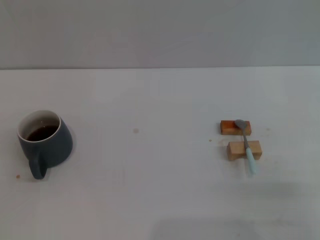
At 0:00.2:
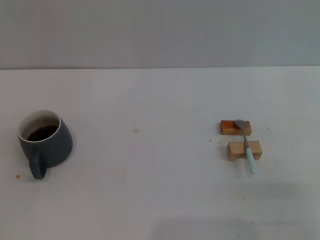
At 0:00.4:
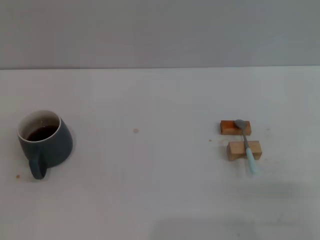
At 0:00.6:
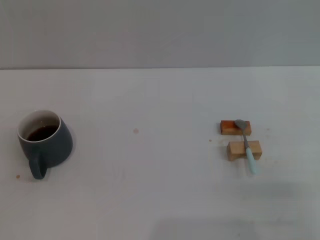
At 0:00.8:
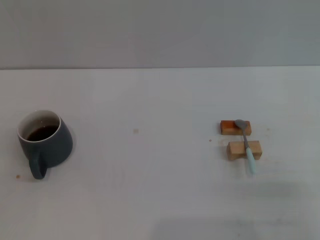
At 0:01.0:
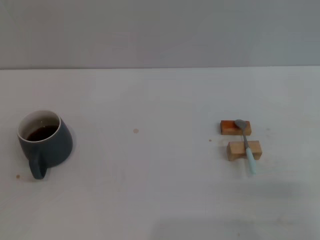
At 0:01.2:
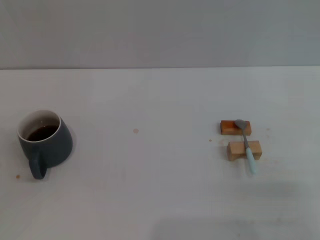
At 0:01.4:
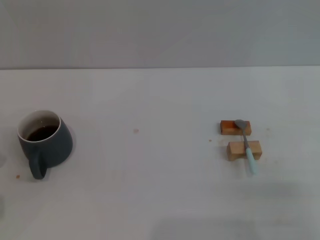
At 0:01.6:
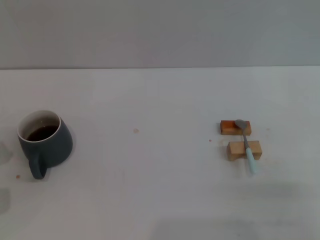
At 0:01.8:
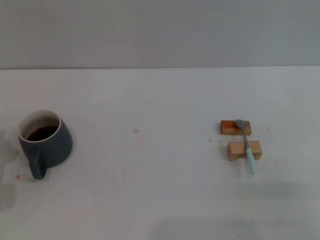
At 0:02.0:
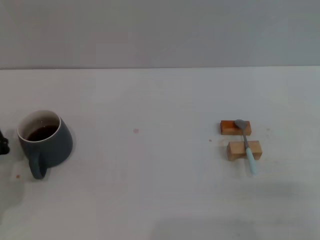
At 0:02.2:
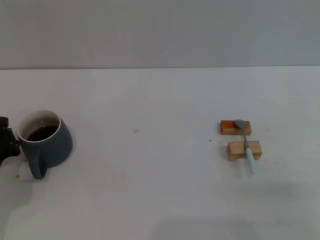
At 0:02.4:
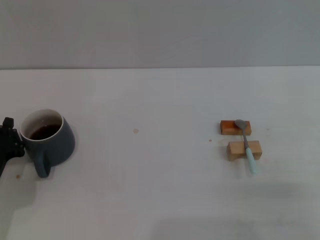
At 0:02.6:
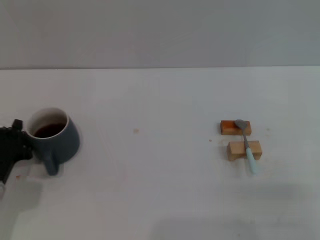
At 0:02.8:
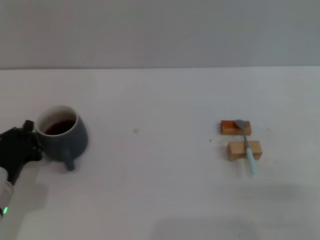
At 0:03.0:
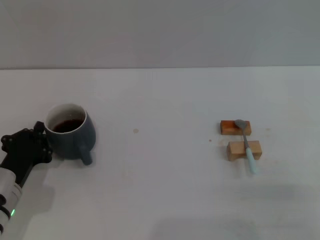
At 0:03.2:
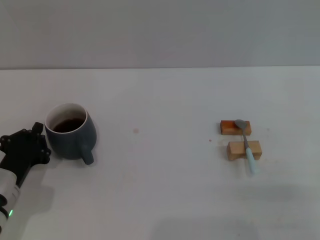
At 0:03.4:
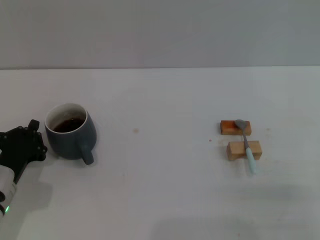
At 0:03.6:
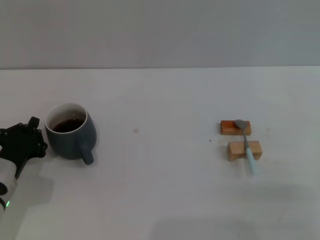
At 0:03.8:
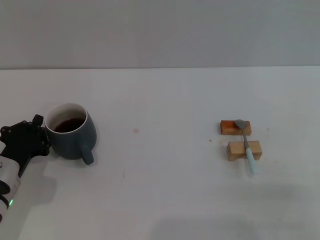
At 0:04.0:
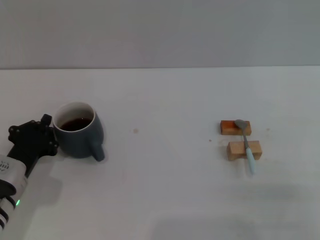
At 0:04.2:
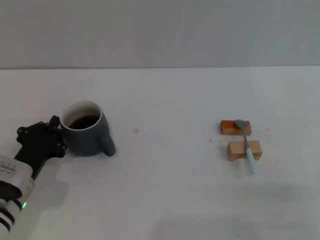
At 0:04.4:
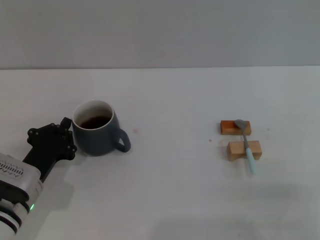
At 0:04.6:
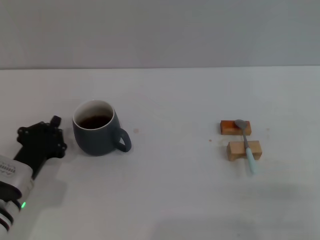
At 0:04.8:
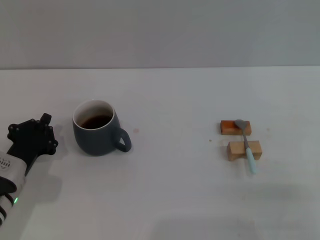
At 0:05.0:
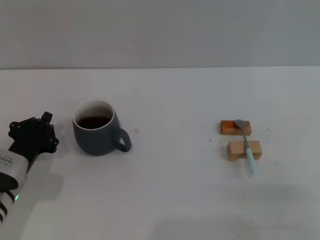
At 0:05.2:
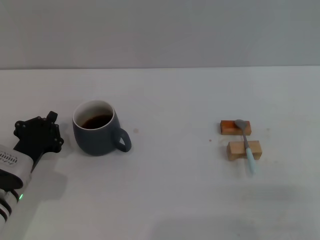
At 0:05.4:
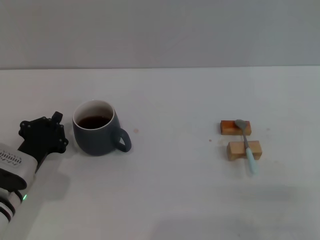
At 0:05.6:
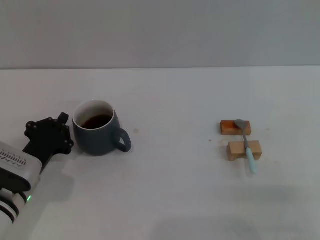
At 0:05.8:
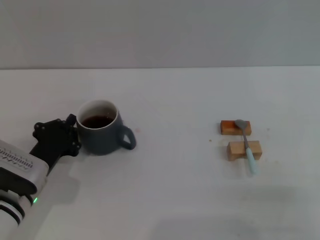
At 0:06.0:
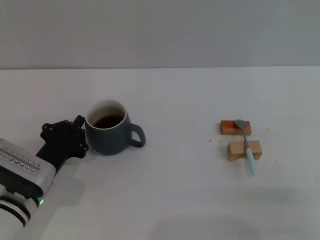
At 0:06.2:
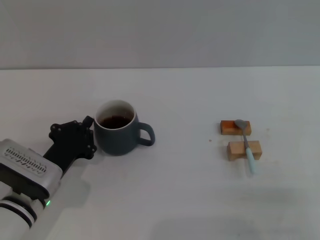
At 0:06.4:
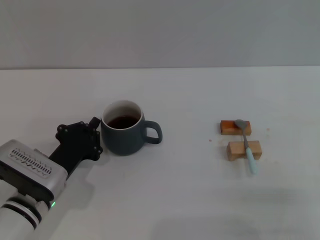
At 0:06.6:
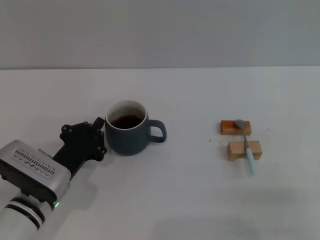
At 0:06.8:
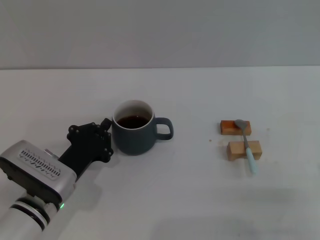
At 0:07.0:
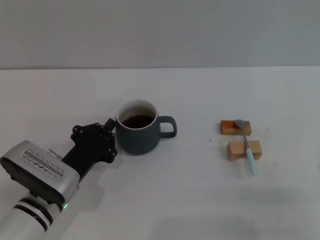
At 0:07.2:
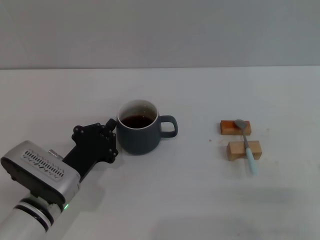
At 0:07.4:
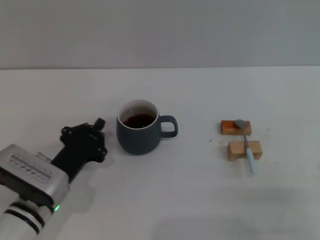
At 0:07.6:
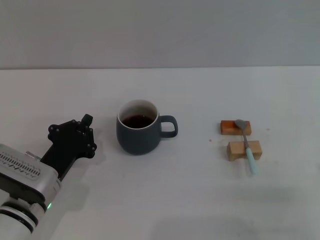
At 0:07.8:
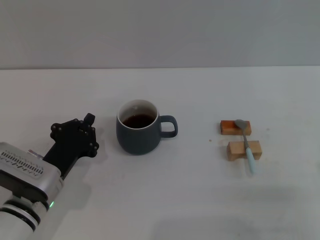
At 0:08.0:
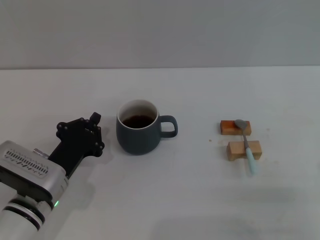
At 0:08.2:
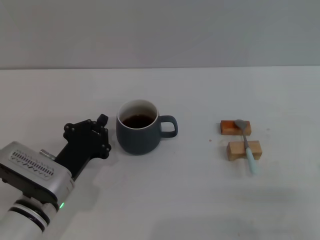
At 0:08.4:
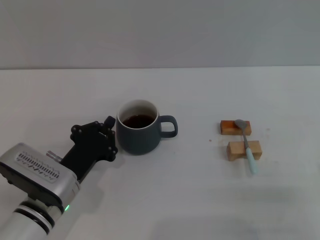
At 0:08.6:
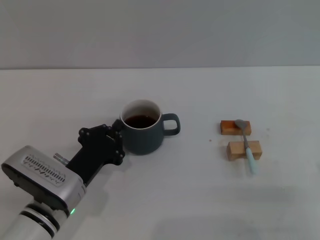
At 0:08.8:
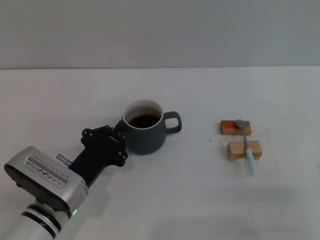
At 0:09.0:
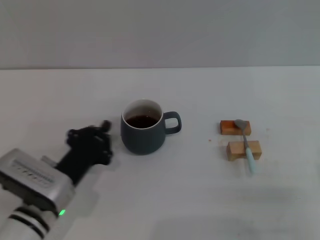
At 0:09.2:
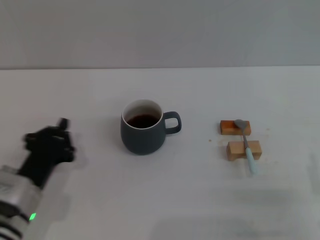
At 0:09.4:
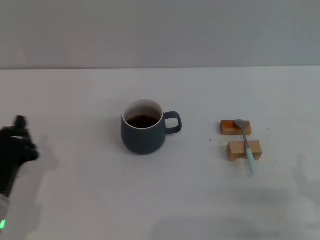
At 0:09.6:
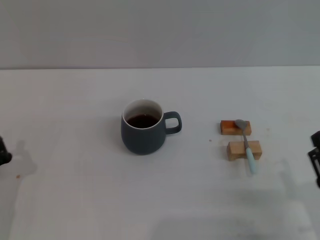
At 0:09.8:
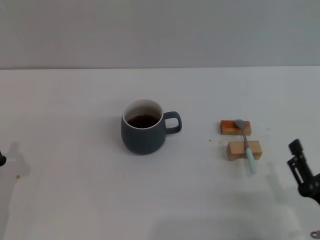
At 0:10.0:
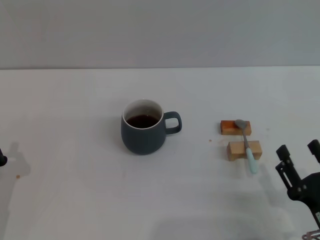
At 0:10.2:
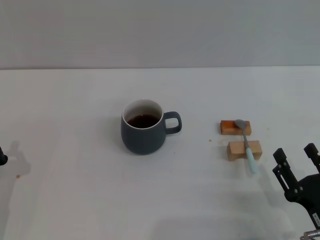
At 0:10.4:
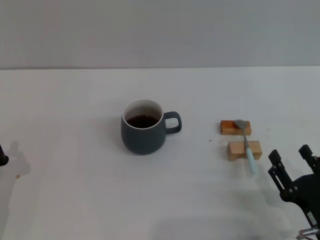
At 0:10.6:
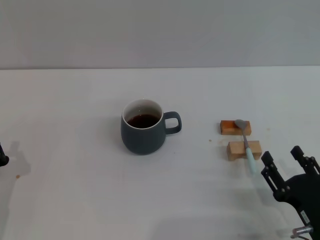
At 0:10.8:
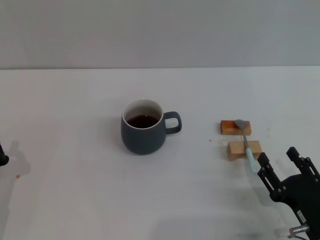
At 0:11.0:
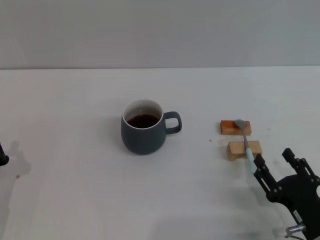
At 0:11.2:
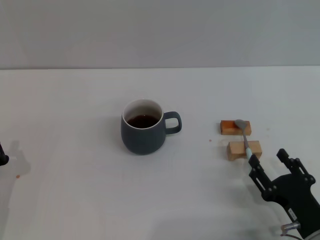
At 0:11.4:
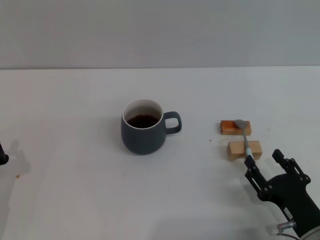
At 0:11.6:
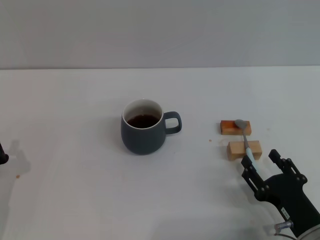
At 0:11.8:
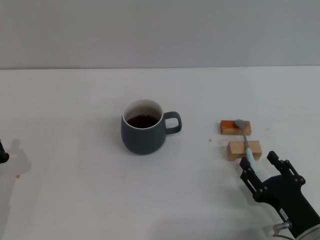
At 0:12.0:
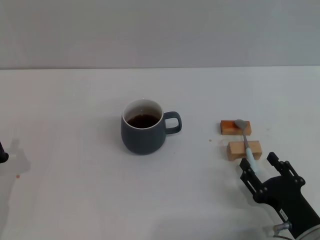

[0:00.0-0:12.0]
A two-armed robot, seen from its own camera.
Task of the whole recording: Move the grey cup to the center, lift the blue spoon, stir it three times in the cup, and put the spoon into the cup.
Step, 0:00.0 to 0:09.0: Move the cup with coffee to the center of view with the left gripper.
0:01.6 to 0:03.0: The left gripper travels to the right by approximately 5 cm.
0:03.0 to 0:06.0: The grippers stay close to where they were, moving slightly.
0:06.0 to 0:09.0: The grippers stay close to where they were, moving slightly.
0:09.0 to 0:10.4: The left gripper heads to the left, covering some 10 cm; the right gripper shifts by about 5 cm.
0:10.4 to 0:12.0: There are only small adjustments of the grippers.

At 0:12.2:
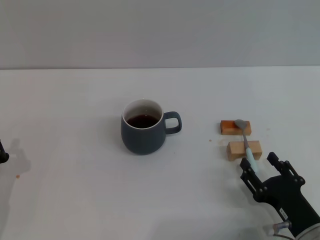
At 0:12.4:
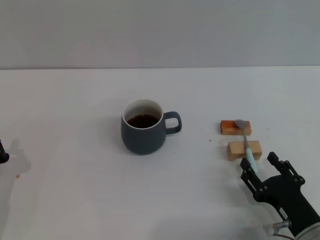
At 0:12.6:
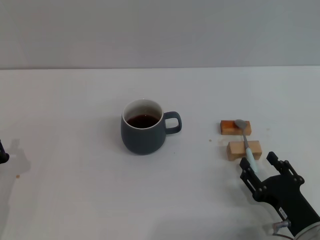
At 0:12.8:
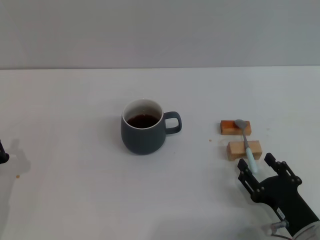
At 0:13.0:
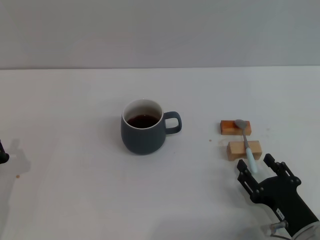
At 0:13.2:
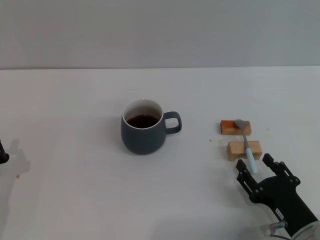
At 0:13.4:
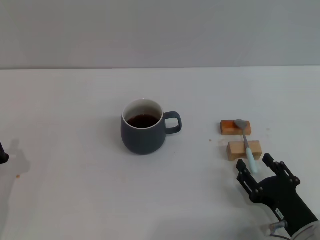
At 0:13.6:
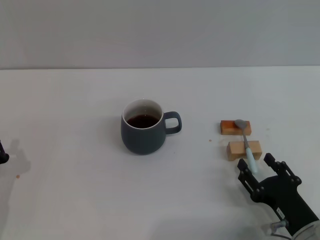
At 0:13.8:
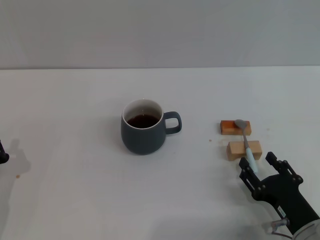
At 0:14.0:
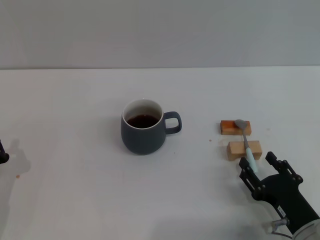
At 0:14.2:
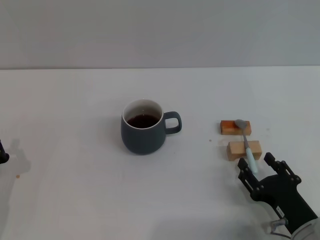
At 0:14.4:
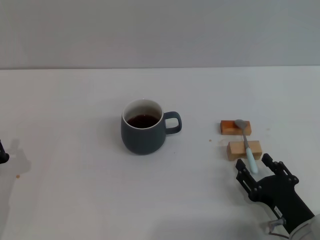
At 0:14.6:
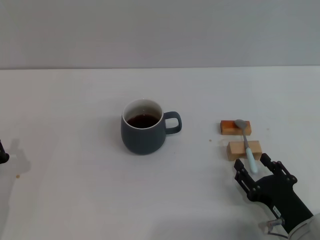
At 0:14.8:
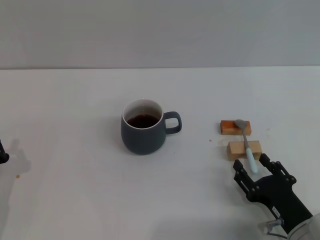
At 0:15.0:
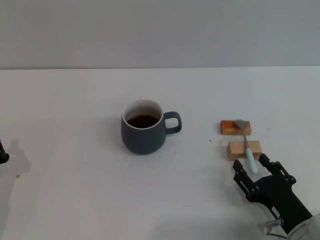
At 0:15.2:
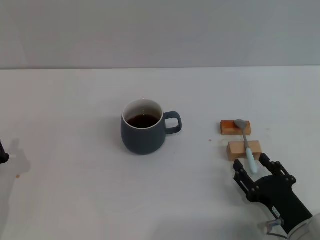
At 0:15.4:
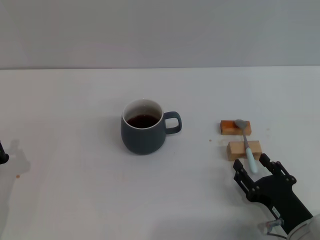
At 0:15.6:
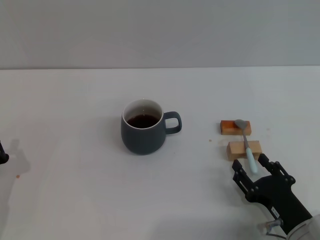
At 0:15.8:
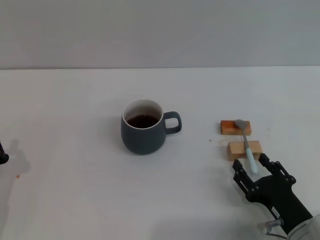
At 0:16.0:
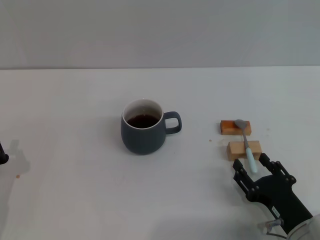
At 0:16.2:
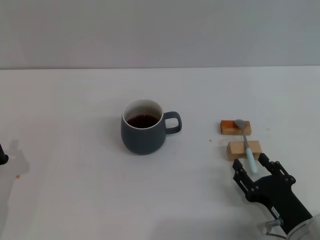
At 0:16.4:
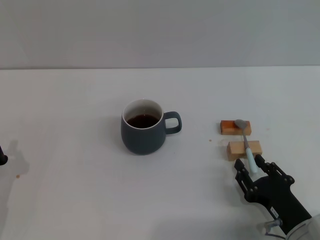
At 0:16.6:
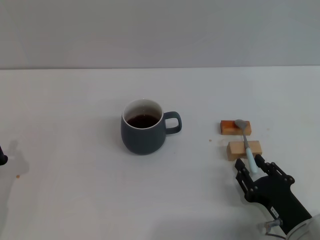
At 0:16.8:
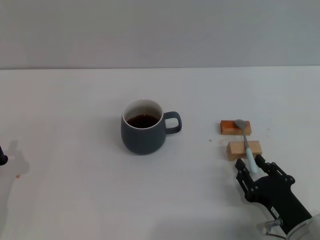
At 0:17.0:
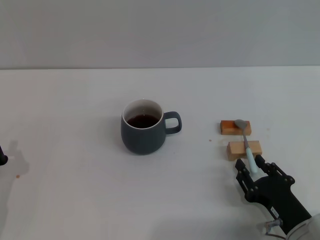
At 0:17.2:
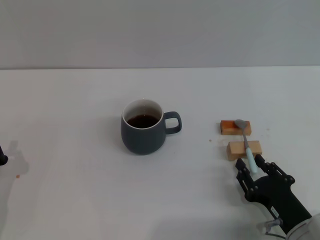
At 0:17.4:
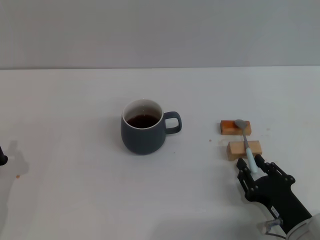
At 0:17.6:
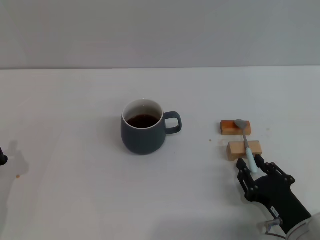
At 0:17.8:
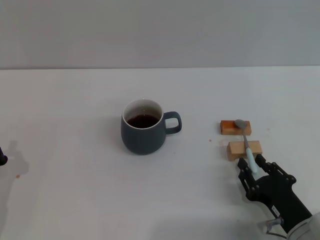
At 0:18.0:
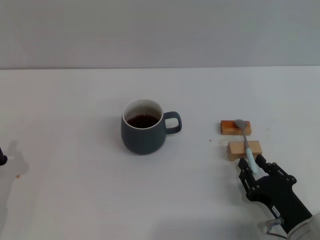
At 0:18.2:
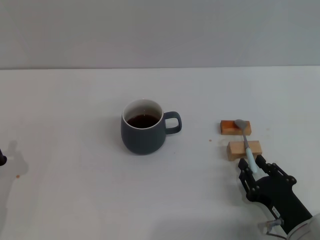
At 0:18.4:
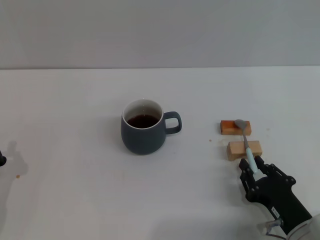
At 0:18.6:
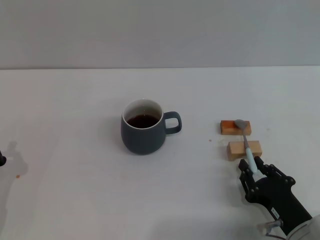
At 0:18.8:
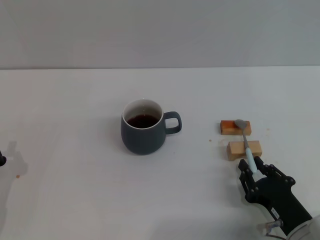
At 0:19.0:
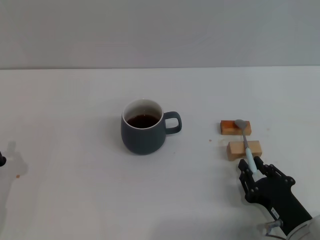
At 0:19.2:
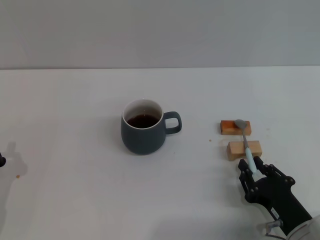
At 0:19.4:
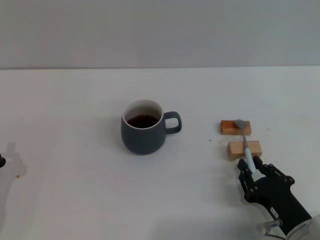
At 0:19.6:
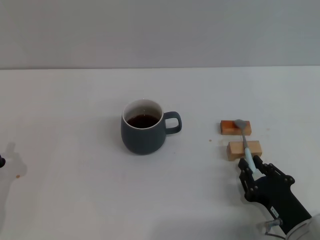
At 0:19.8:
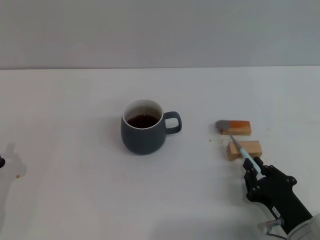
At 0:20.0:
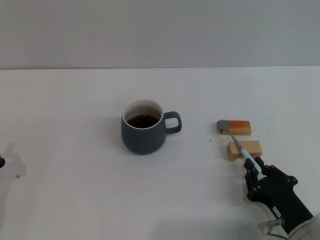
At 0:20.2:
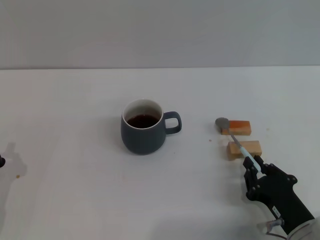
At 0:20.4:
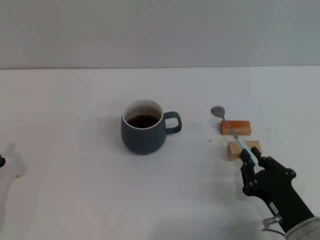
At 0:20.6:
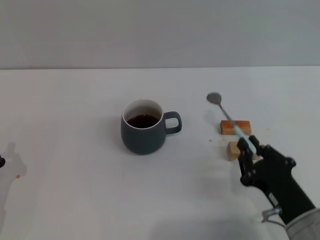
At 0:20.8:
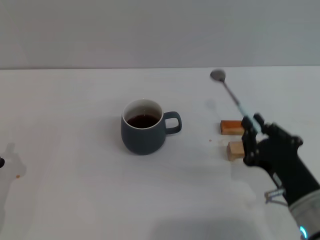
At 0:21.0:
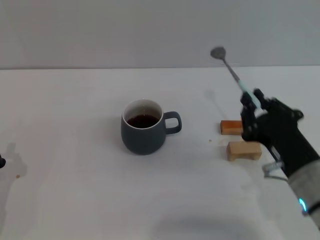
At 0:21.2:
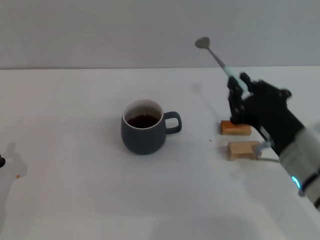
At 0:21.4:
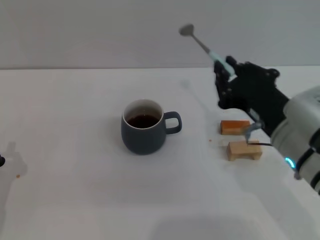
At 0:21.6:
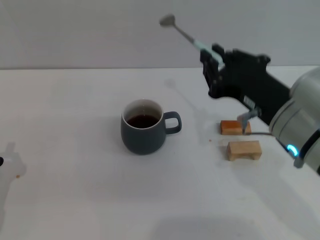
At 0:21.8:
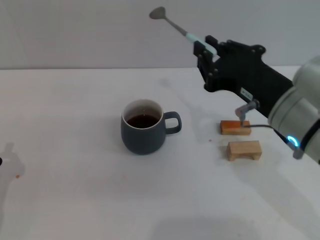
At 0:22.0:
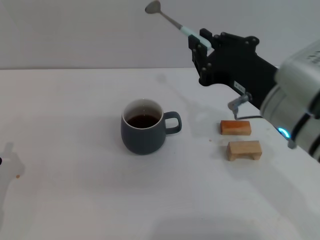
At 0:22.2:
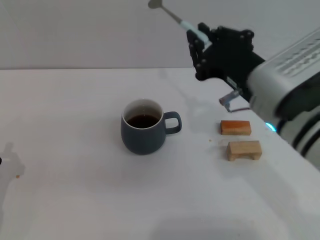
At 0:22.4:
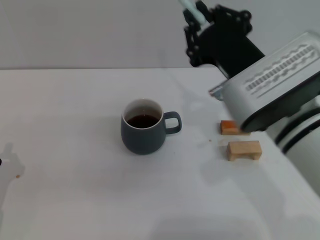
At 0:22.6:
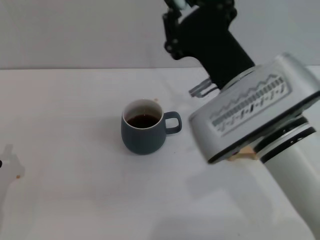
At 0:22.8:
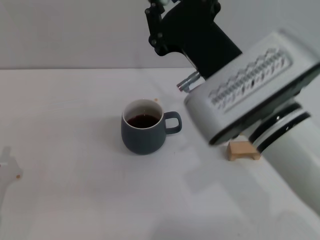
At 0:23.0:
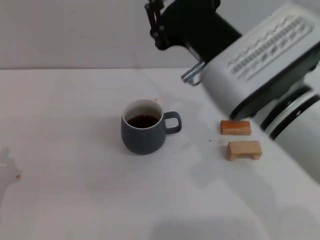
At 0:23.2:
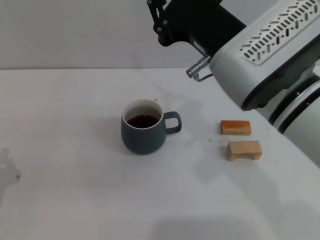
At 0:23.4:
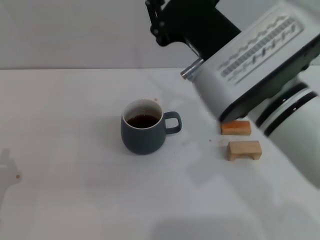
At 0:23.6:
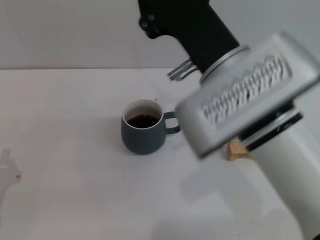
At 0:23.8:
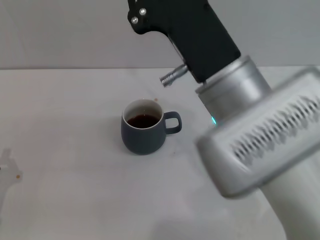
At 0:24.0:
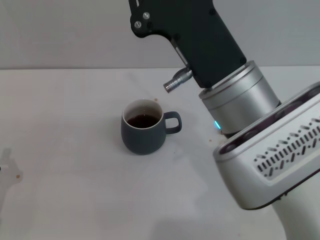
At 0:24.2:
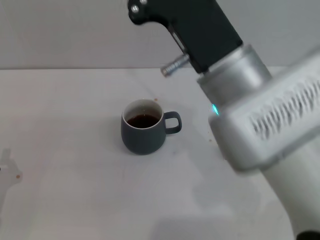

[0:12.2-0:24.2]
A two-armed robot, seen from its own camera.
Task of the whole recording: Move the grey cup to the center, lift the blue spoon, stir it three times in the cup, and put the spoon into the cup.
Step, 0:12.2 to 0:21.0: Pick up the spoon with the right gripper.
0:12.2 to 0:19.8: The two grippers keep their place.
0:19.8 to 0:21.2: The right gripper is displaced upward by about 15 cm.
0:21.2 to 0:22.6: The right gripper travels to the left and upward by about 10 cm.
